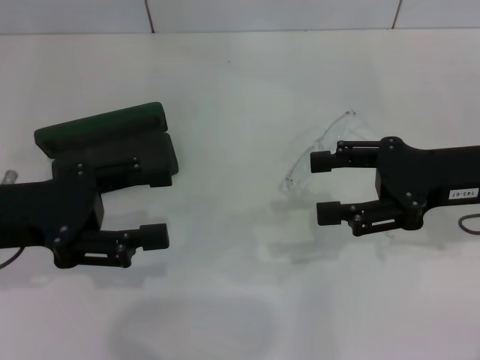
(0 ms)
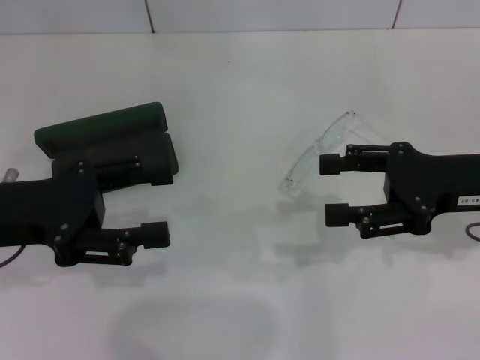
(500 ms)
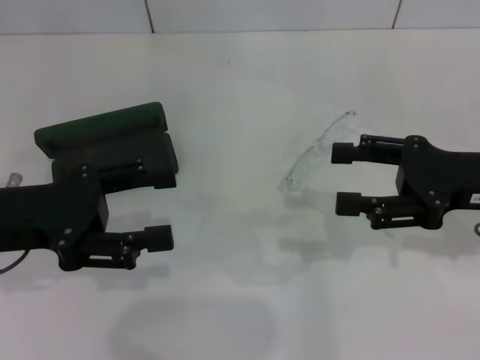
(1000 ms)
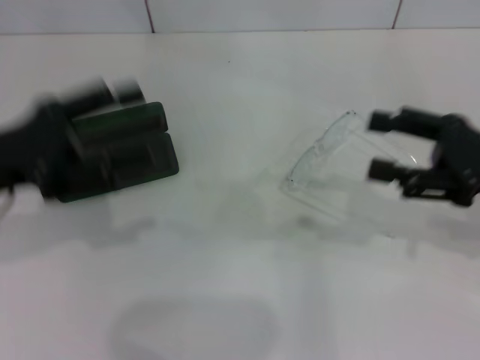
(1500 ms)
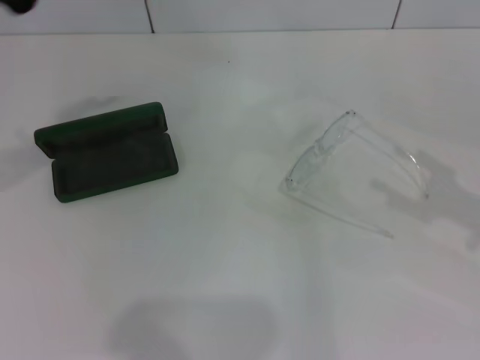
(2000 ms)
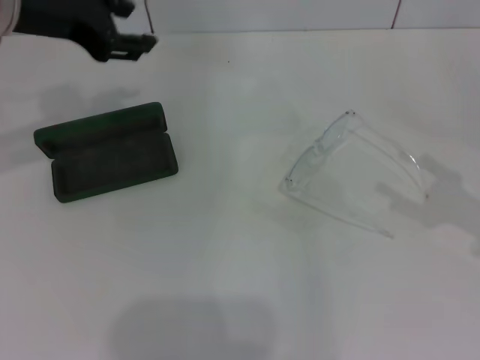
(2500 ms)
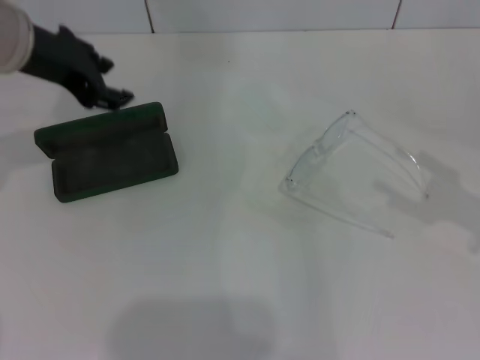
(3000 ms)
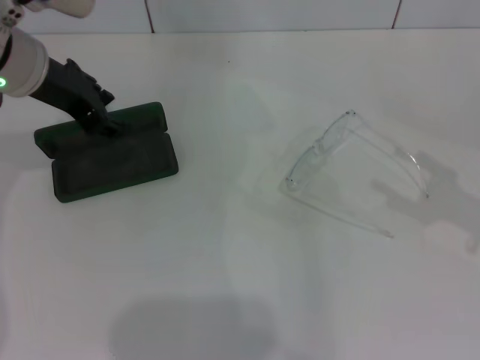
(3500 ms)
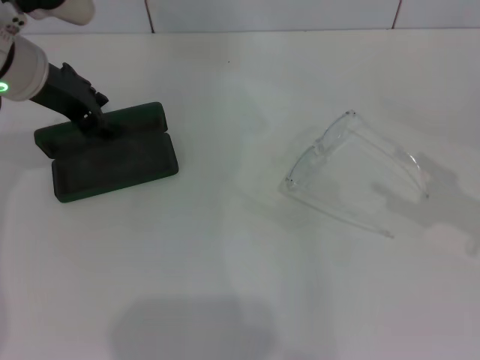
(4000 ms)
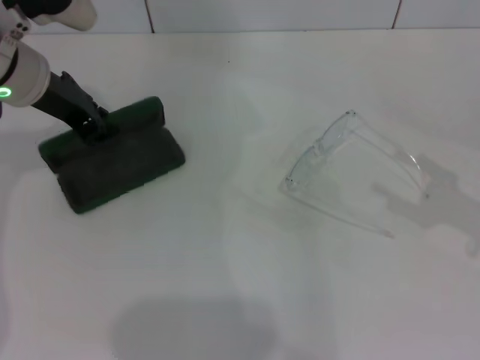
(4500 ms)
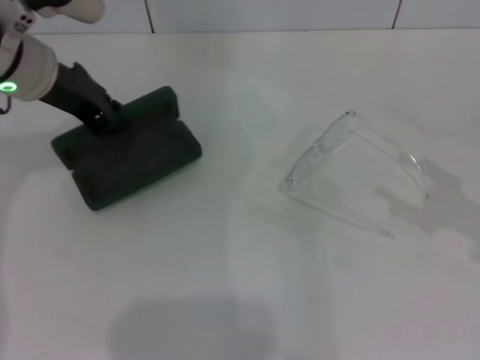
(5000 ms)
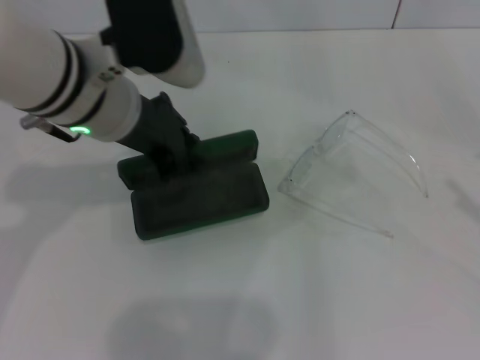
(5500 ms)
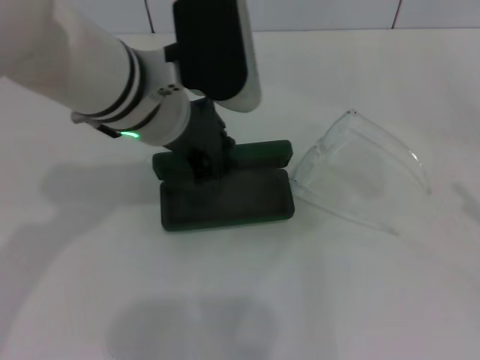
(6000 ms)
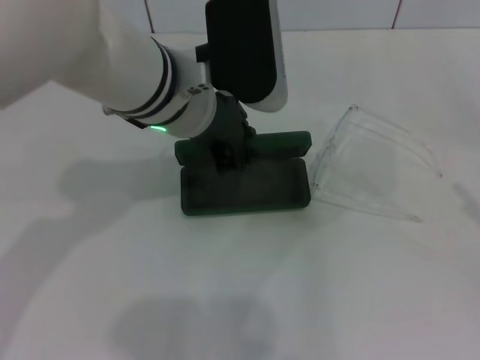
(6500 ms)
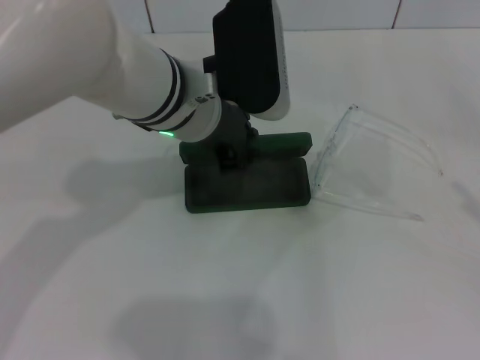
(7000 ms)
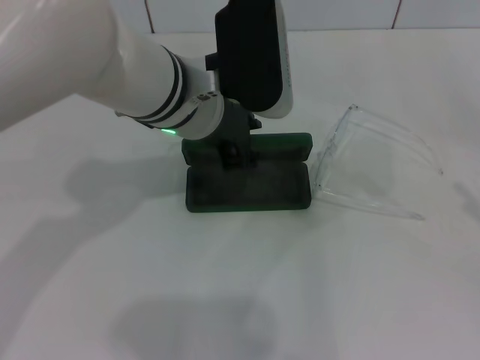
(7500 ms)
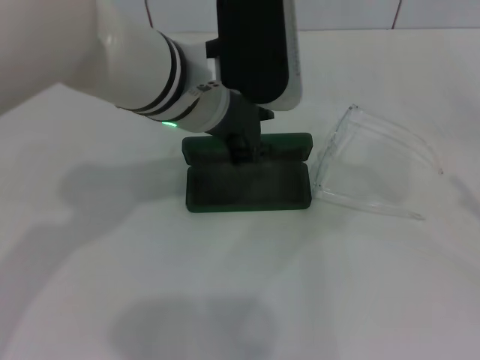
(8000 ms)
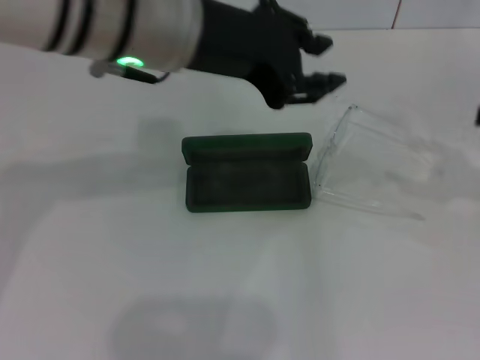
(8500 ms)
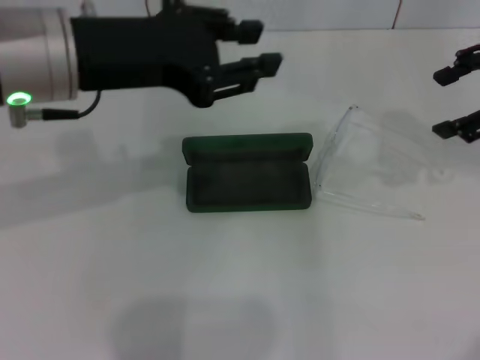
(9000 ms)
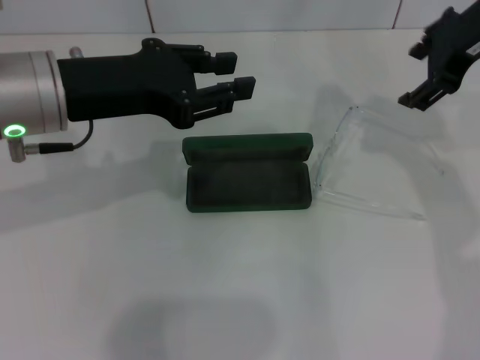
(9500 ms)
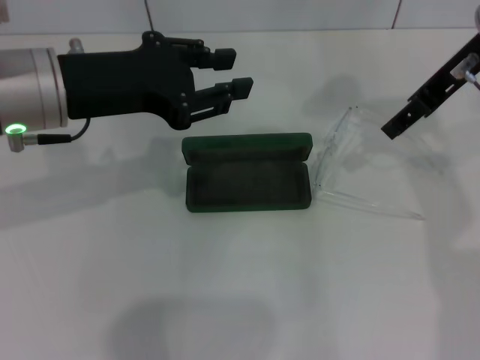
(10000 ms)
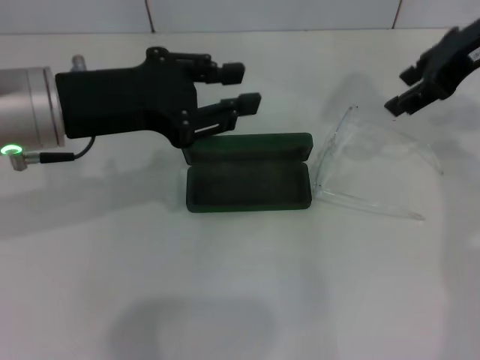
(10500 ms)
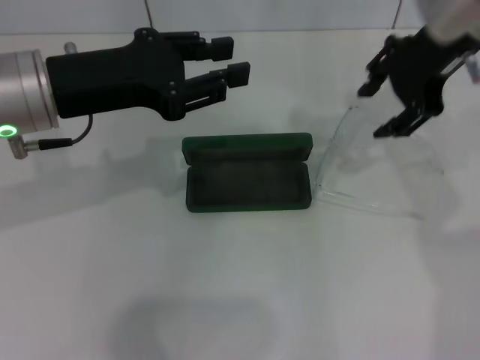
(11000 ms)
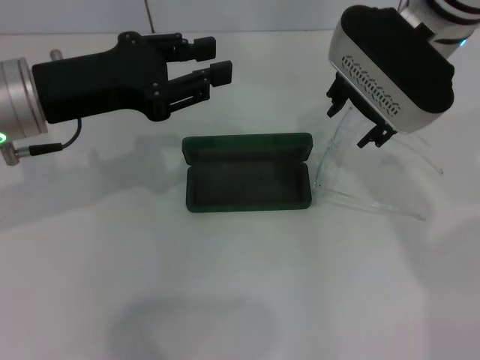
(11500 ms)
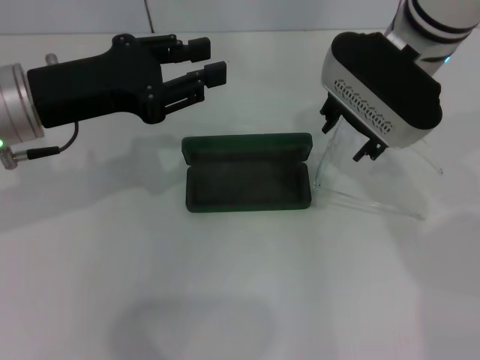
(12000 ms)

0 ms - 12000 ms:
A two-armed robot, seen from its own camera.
Step, 0 ms - 4500 ms: Grab the glasses case with your left hand.
Step, 5000 ms - 7500 ms: Place the glasses case in the center of the table with your left hand.
0 ms - 2000 ms: The right gripper travels to the right and backward by approximately 15 cm. Meanwhile the left gripper moves upward and forward, roughly 10 cm.
2000 ms - 4000 ms: The left gripper goes about 10 cm forward, to the right and downward, and closes up.
4000 ms - 6000 ms: The left gripper heads to the right and backward, covering about 15 cm. Meanwhile the right gripper travels backward by about 5 cm.
6000 ms - 8000 ms: The grippers make only small movements.
8000 ms - 10000 ms: The right gripper is displaced to the left, forward and upward by roughly 30 cm, while the left gripper moves to the left, roughly 15 cm.
10000 ms - 12000 ms: The right gripper shifts approximately 10 cm to the left.

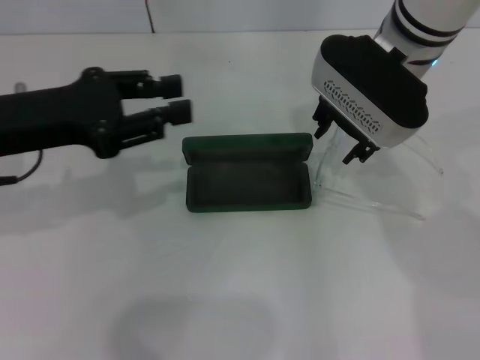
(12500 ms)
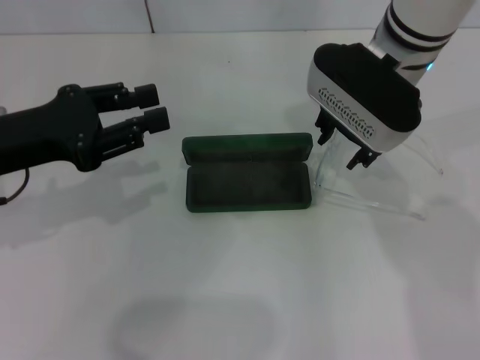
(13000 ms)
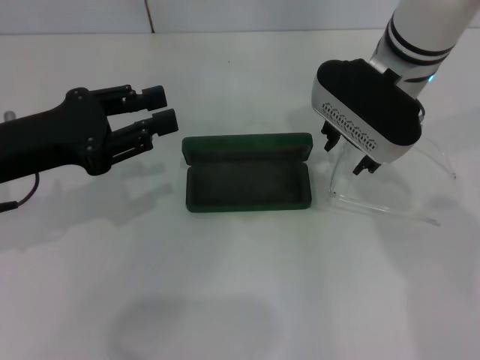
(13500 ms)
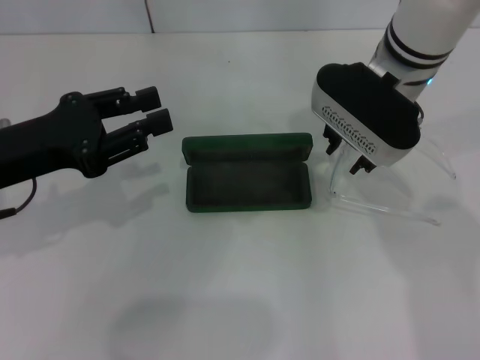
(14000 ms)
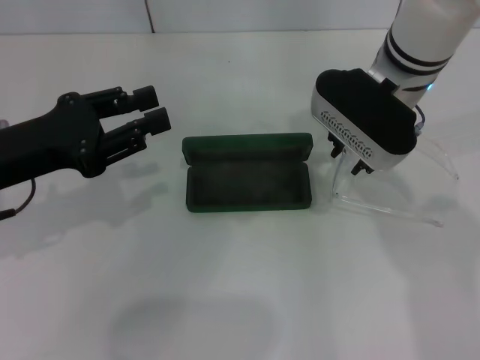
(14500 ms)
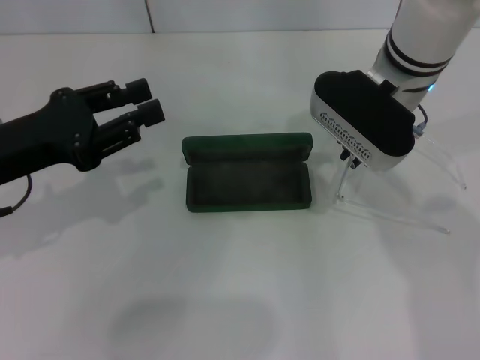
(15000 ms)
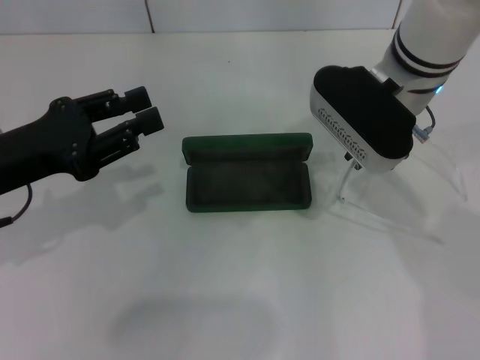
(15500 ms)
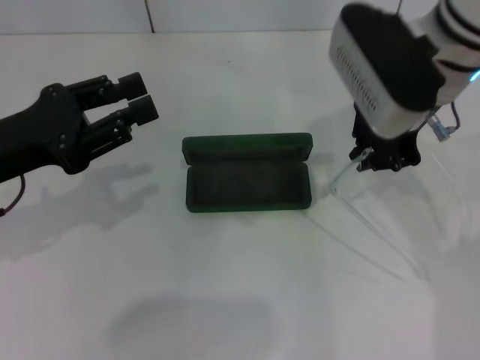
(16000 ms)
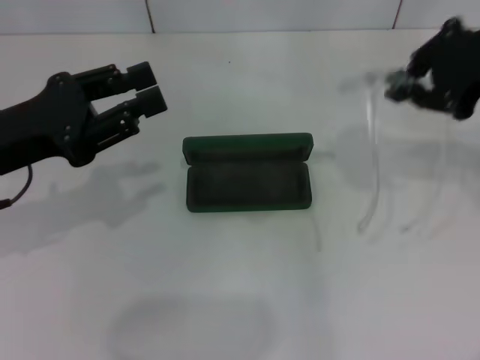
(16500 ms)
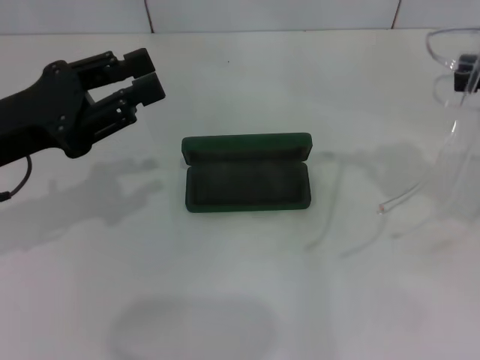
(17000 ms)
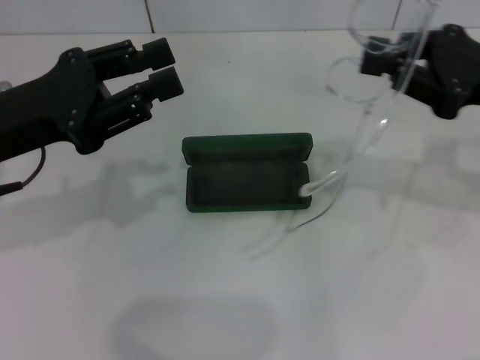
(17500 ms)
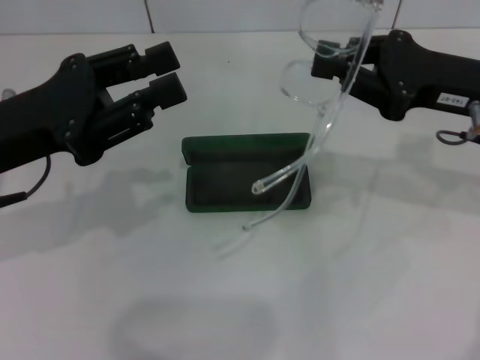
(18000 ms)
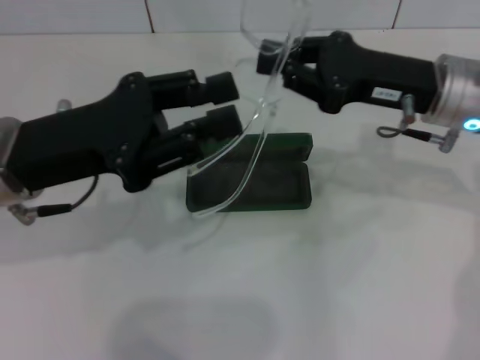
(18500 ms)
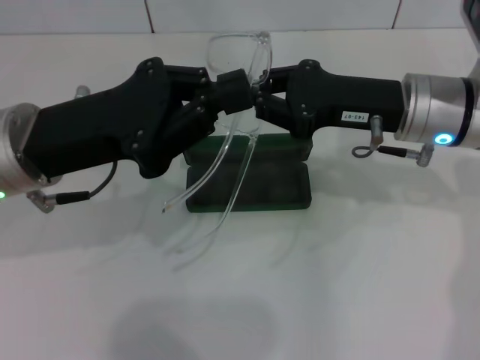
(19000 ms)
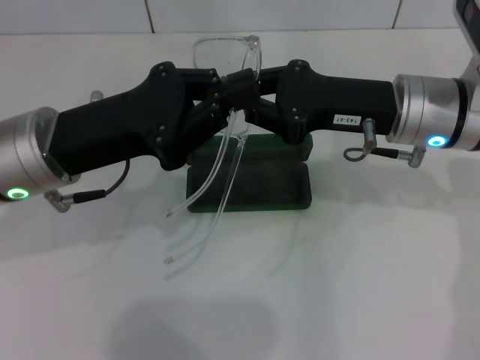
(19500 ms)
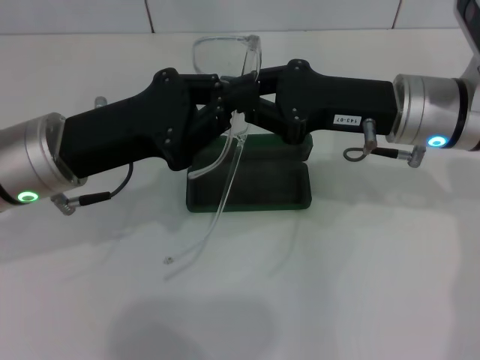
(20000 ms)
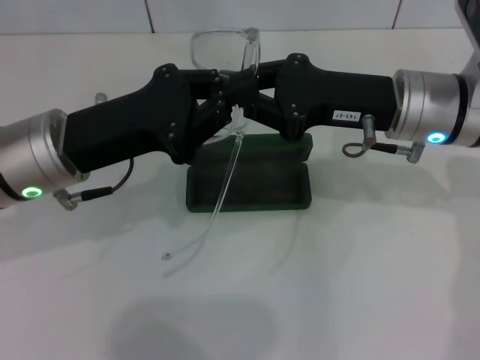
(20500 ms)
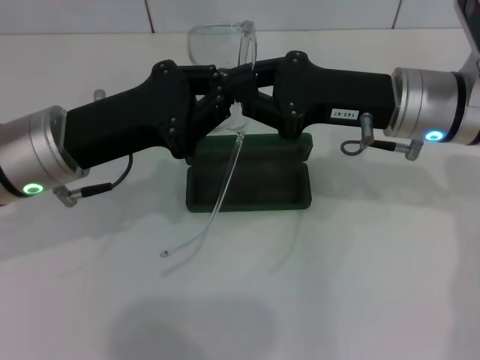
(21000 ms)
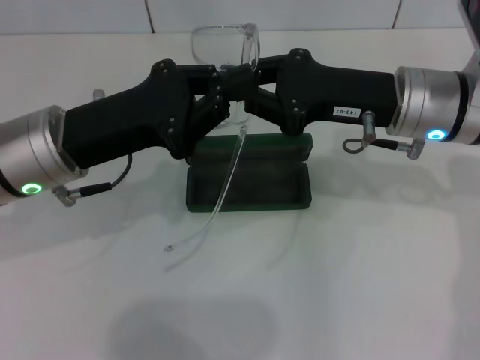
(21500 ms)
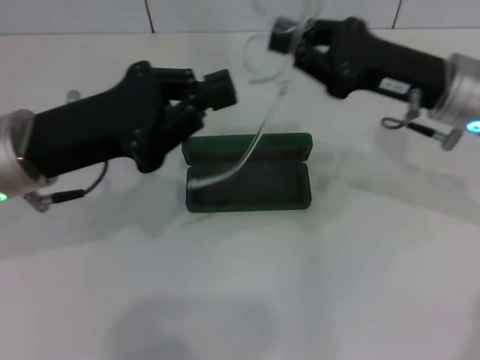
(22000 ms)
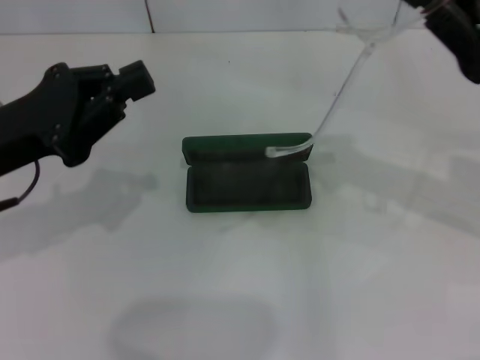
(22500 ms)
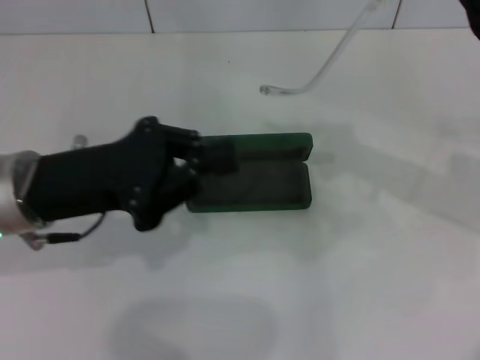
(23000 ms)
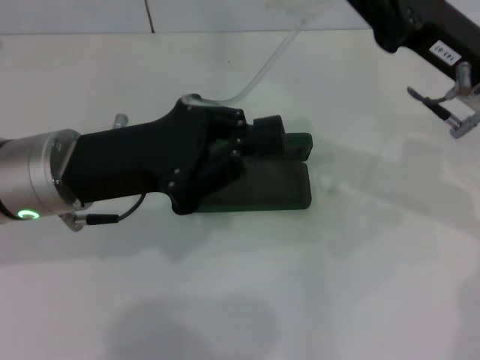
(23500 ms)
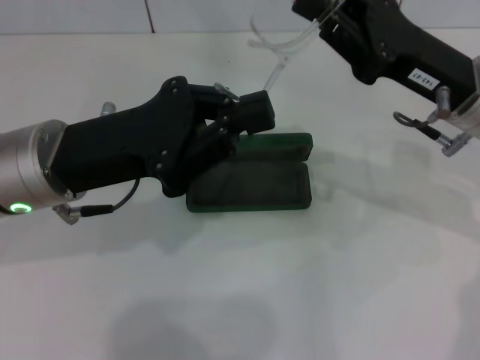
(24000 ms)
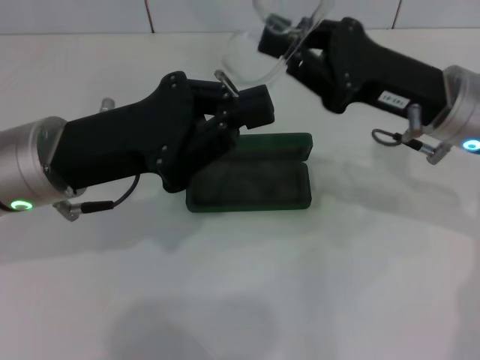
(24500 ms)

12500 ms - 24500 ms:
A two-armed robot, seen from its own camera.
Step, 12500 ms - 14500 ms: Grab the eyeglass frame with your right hand.
12500 ms - 14500 ms: There are only small adjustments of the grippers.
14500 ms - 16500 ms: The right gripper moves to the right, upward and backward, about 20 cm, and closes.
16500 ms - 18500 ms: The left gripper is displaced to the right by some 5 cm. The right gripper is displaced downward and to the left by approximately 10 cm.
18500 ms - 20500 ms: The left gripper closes up.
20500 ms - 22500 ms: The left gripper shifts about 5 cm to the left; the right gripper travels to the right by some 10 cm.
22500 ms - 24500 ms: The left gripper shifts approximately 10 cm to the right; the right gripper heads to the left, covering about 5 cm.

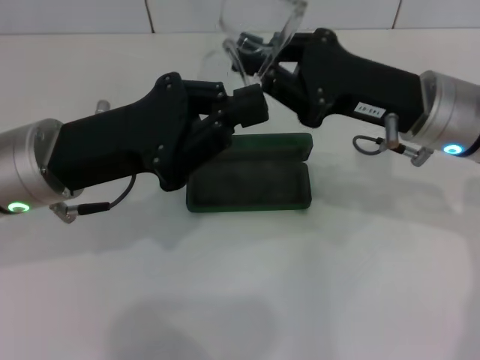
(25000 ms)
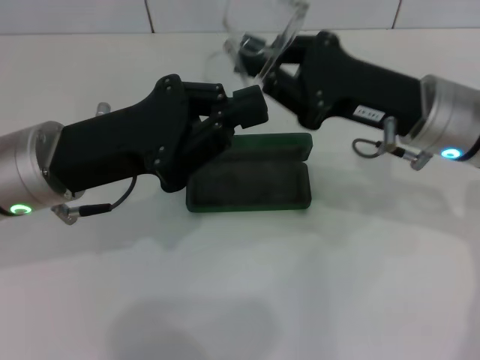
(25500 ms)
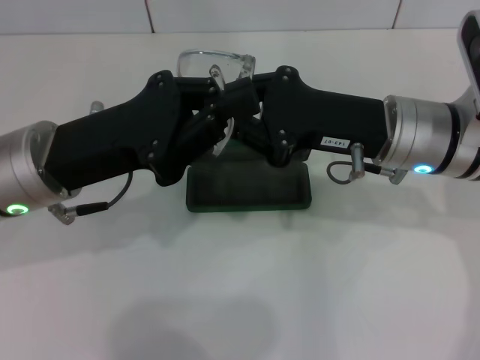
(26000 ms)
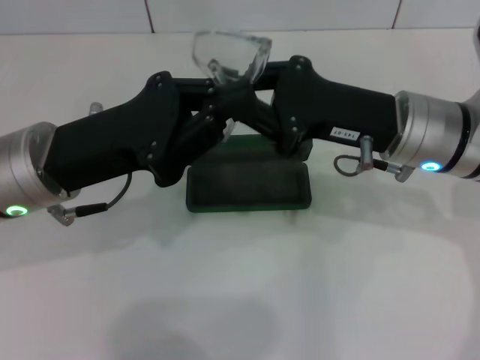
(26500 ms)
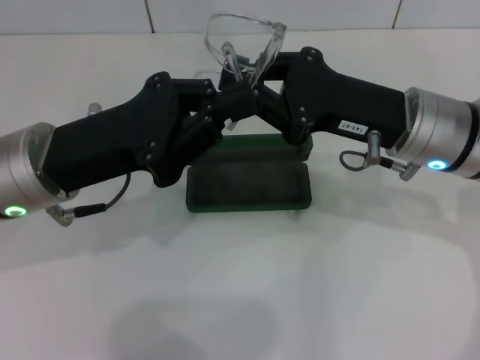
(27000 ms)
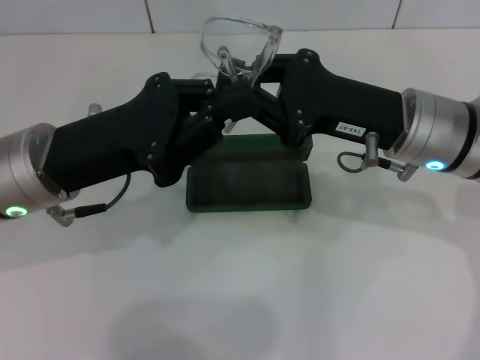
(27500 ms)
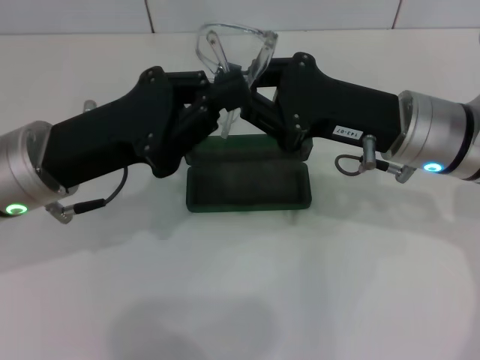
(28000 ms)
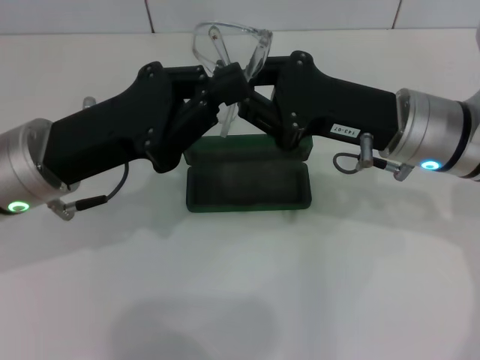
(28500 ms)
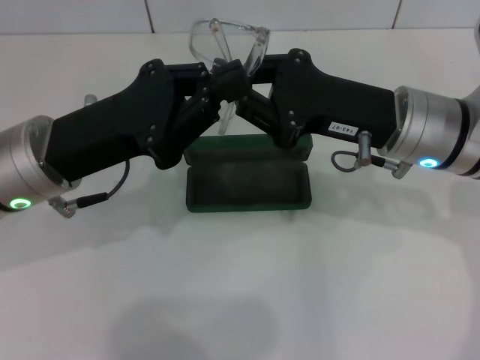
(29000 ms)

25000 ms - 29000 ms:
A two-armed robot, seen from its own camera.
25000 ms - 27000 ms: The grippers move only a little.
27000 ms - 29000 ms: The two grippers keep their place.
